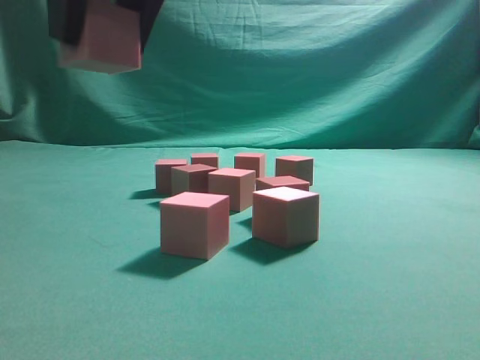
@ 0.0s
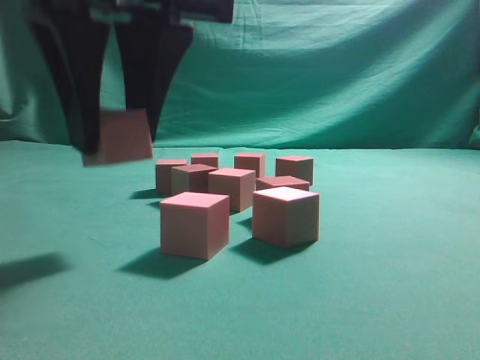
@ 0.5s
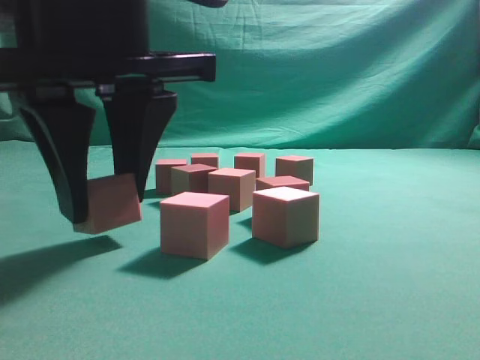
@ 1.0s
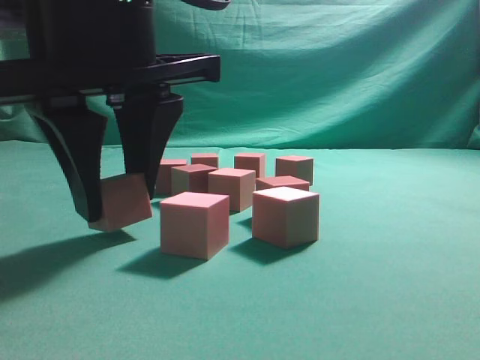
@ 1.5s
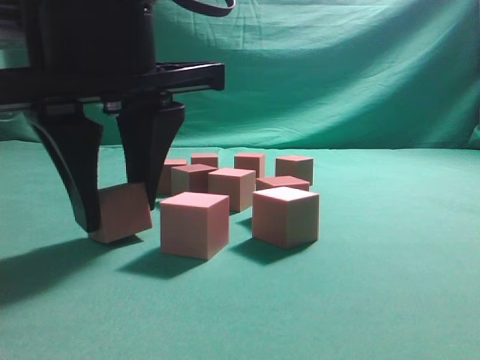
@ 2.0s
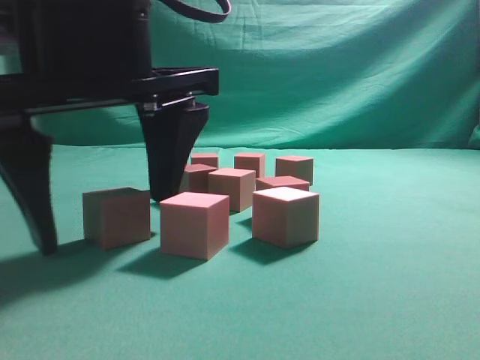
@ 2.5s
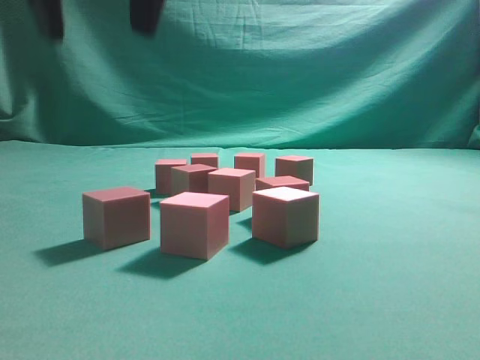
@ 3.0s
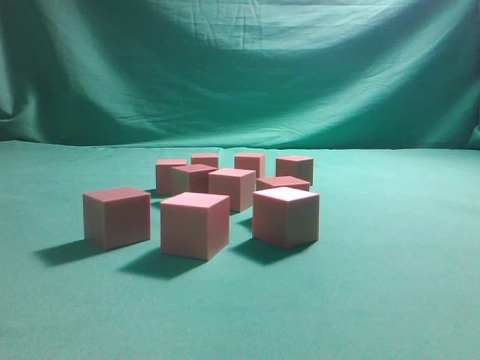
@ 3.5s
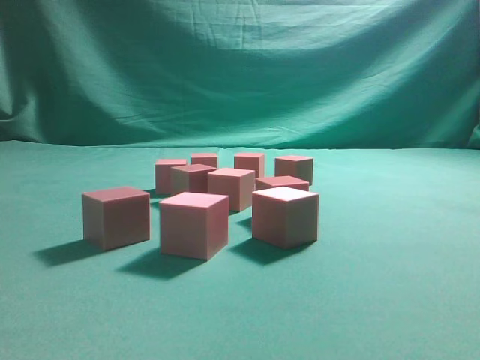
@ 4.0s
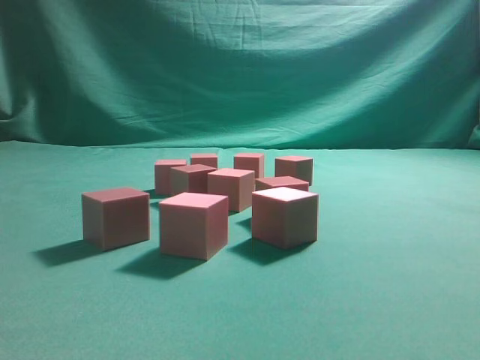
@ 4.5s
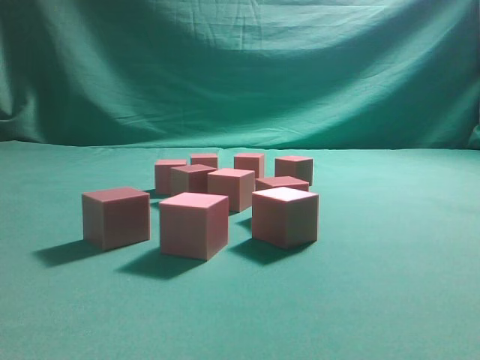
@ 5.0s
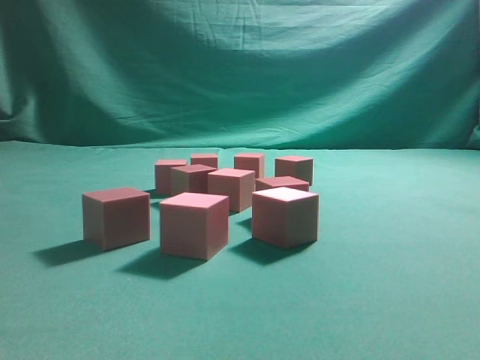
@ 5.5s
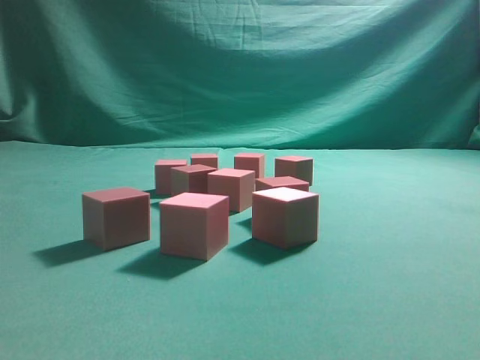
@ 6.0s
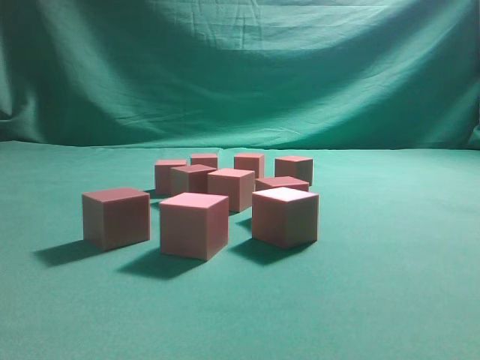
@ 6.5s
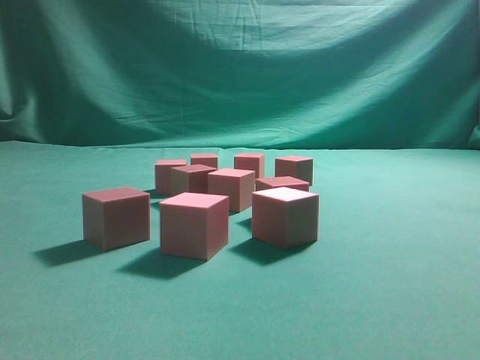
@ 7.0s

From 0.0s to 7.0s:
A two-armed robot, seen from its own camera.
Task of the whole recording: pick up the multiple cubes in two columns one by one and place them in another position on the table.
From 0.0s to 2.0s: The right gripper shifts roughly 10 cm downward.
From 2.0s to 3.5s: The right gripper moves upward, some 30 cm, and closes up.
